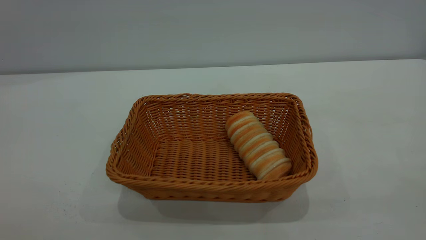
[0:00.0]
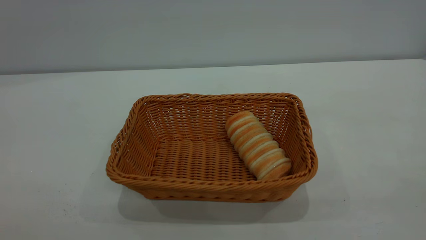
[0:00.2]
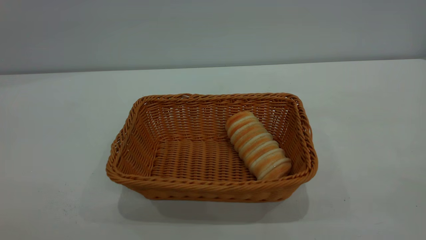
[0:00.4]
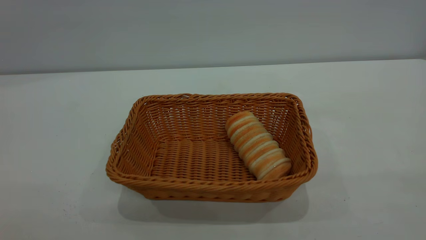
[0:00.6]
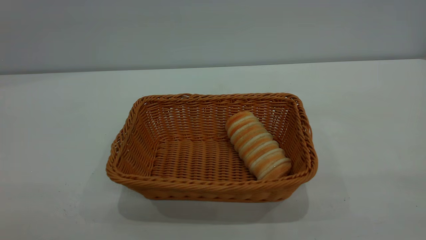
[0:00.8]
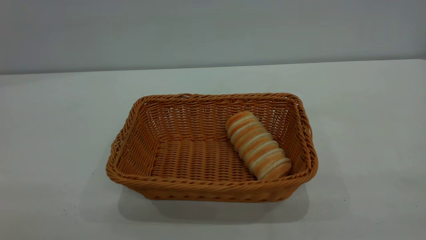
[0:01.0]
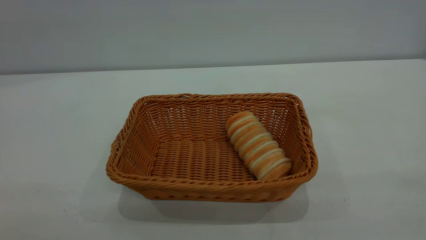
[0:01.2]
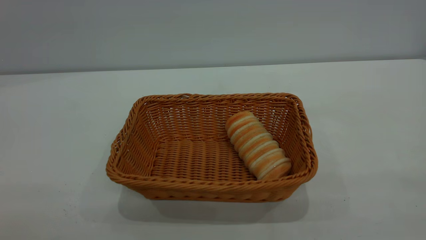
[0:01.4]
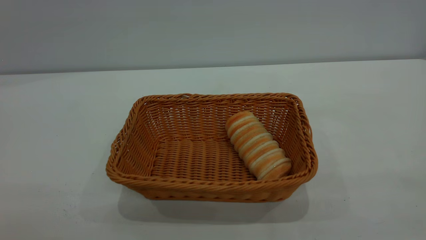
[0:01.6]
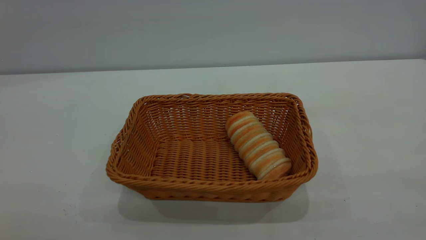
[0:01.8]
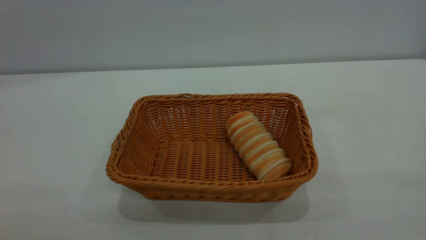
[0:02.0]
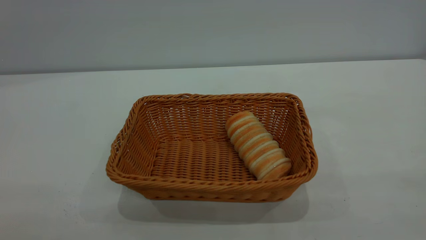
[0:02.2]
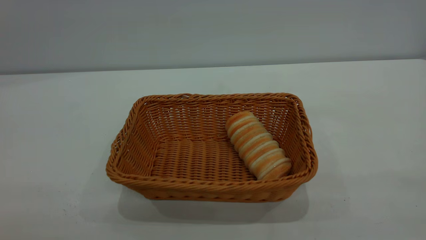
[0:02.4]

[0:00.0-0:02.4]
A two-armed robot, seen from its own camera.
Task of the whole recording: One hand grasps the yellow basket and places it in the middle of the table, while the other hand picks up the long bread and puts it into the yellow basket.
0:01.2 to 0:02.4: The two grippers keep their place.
